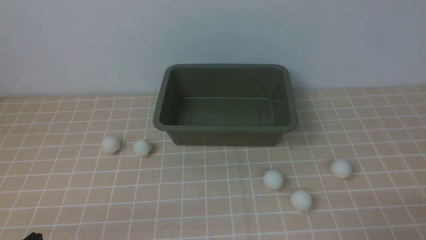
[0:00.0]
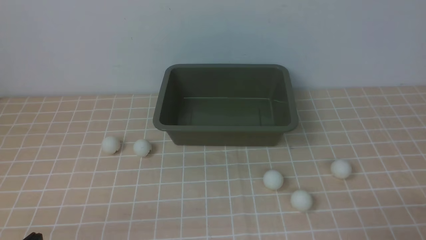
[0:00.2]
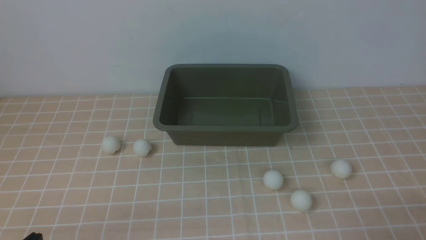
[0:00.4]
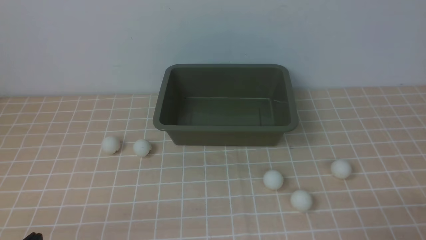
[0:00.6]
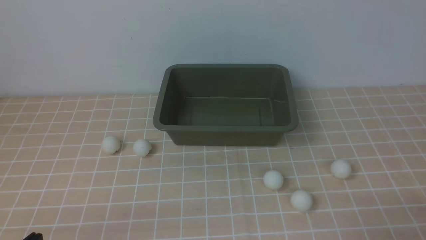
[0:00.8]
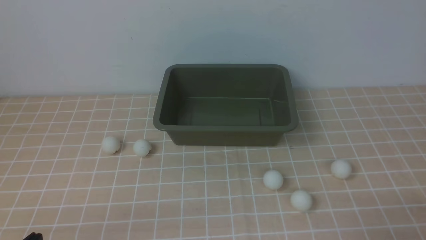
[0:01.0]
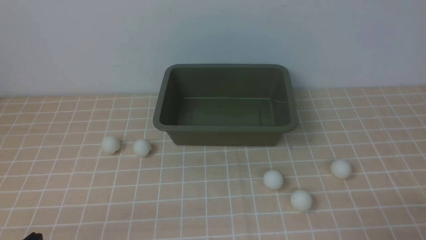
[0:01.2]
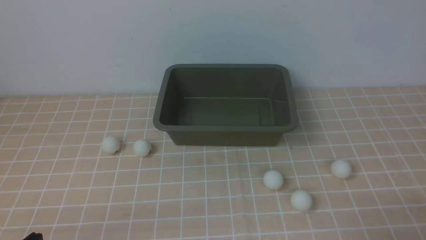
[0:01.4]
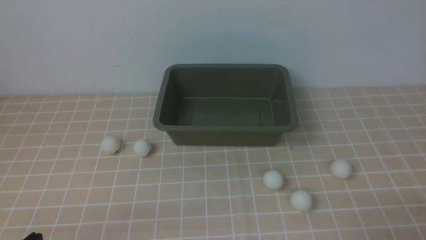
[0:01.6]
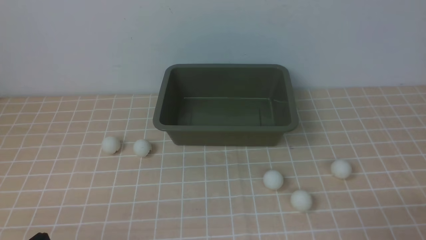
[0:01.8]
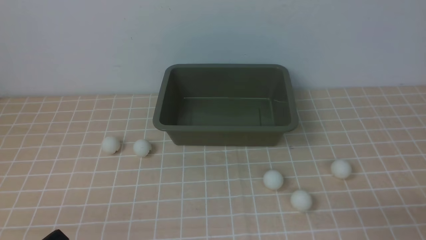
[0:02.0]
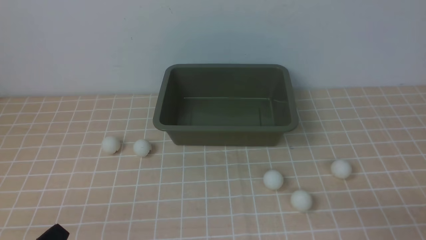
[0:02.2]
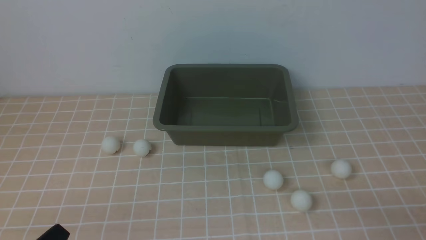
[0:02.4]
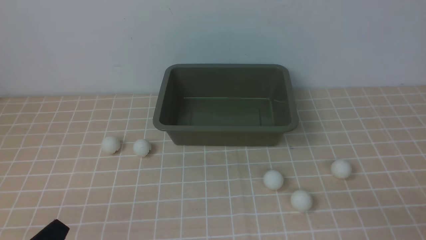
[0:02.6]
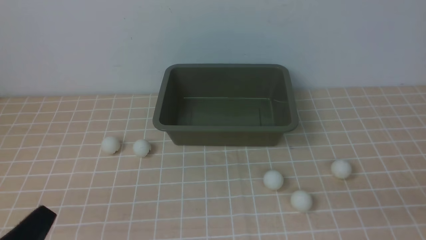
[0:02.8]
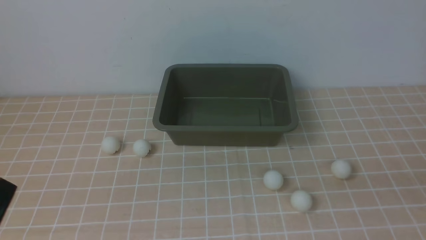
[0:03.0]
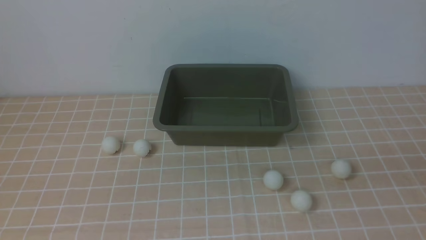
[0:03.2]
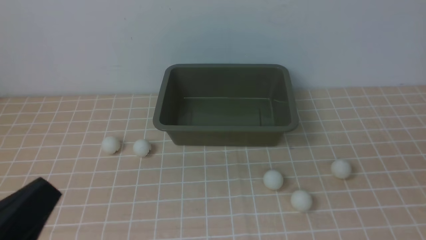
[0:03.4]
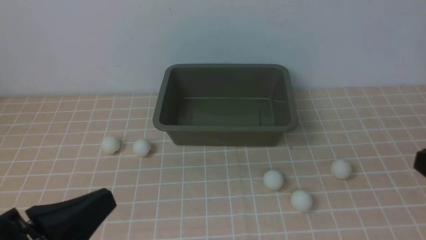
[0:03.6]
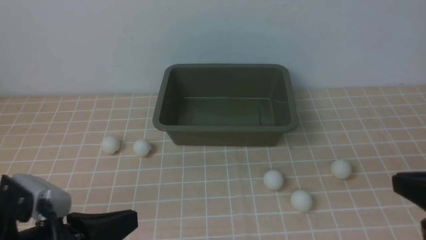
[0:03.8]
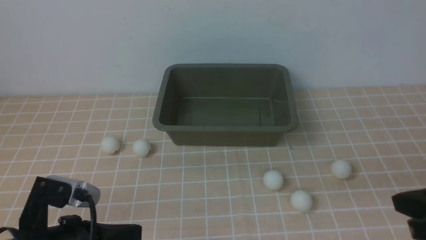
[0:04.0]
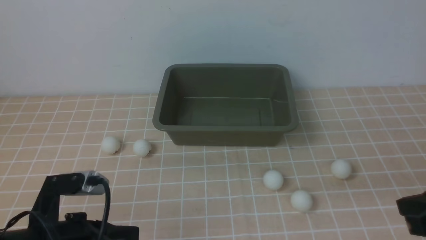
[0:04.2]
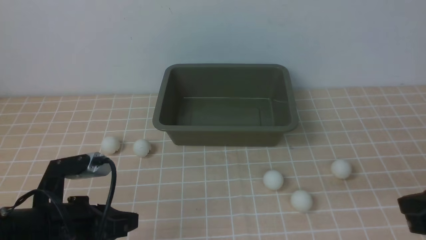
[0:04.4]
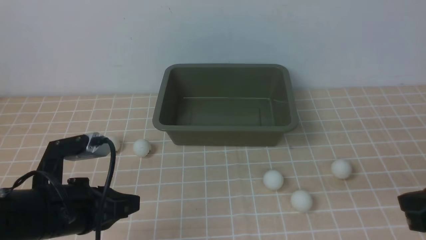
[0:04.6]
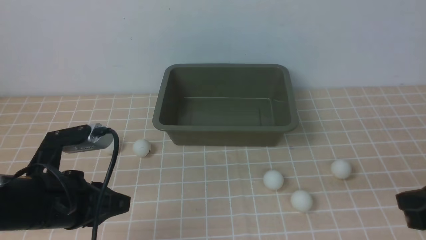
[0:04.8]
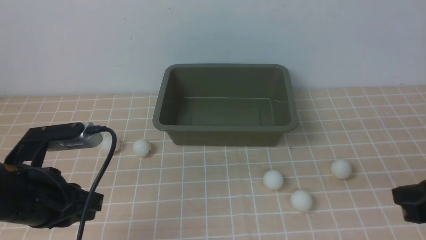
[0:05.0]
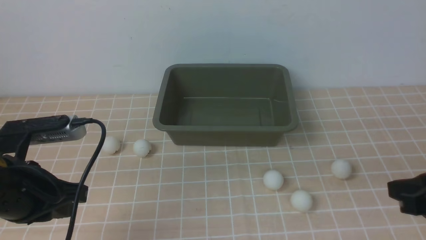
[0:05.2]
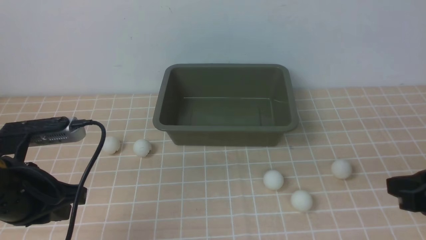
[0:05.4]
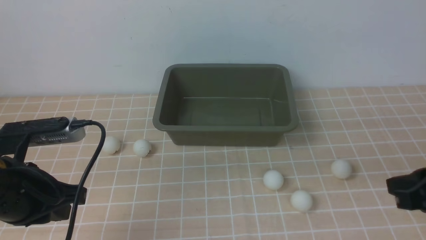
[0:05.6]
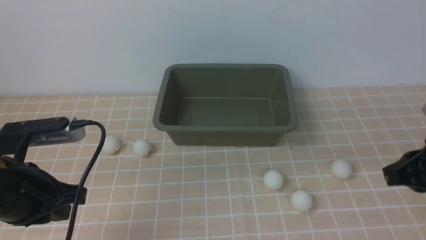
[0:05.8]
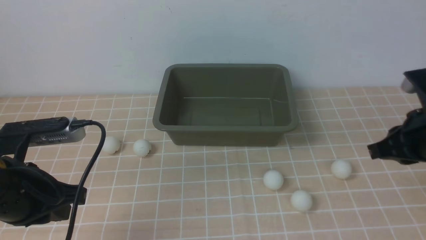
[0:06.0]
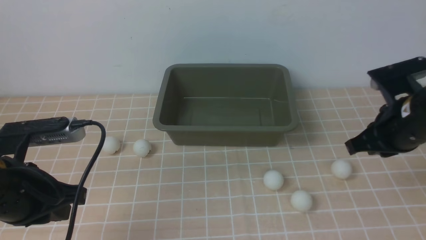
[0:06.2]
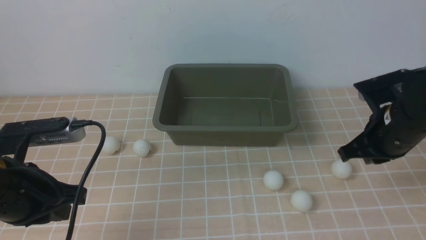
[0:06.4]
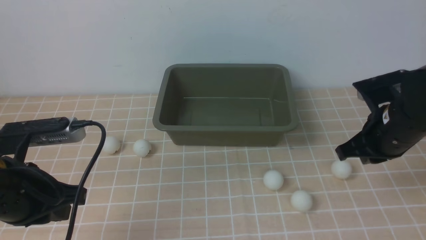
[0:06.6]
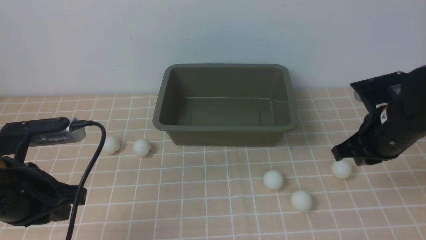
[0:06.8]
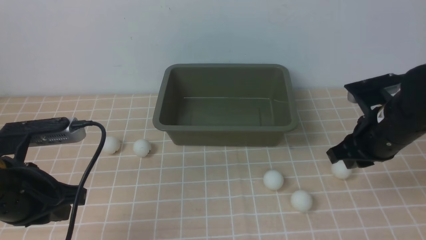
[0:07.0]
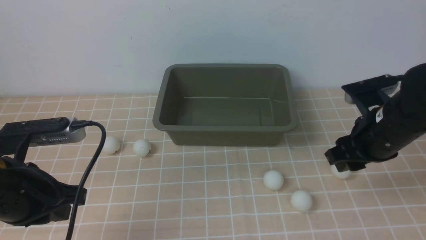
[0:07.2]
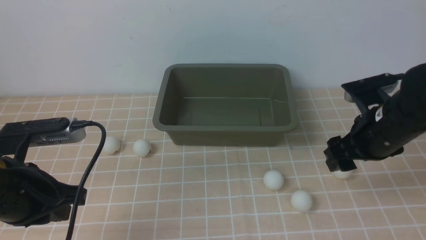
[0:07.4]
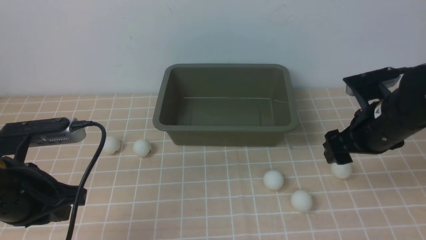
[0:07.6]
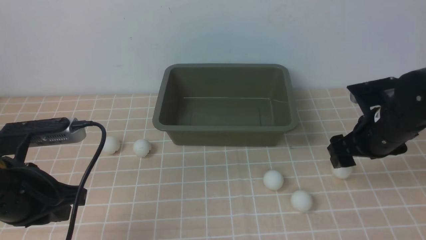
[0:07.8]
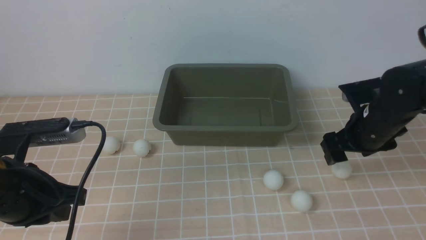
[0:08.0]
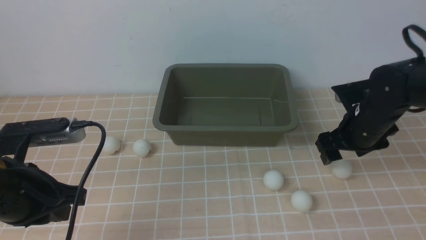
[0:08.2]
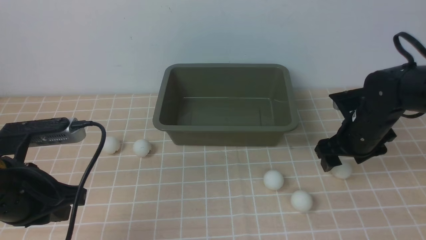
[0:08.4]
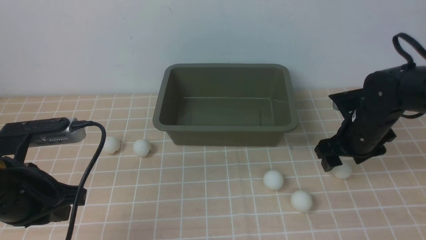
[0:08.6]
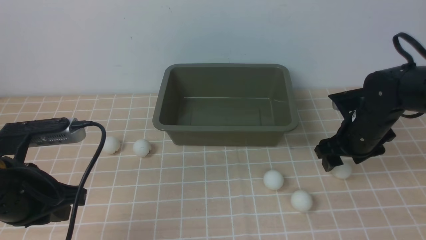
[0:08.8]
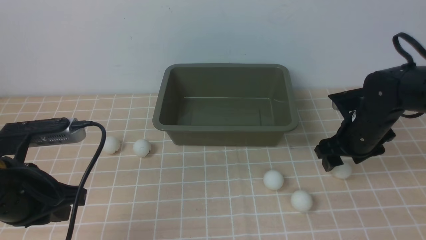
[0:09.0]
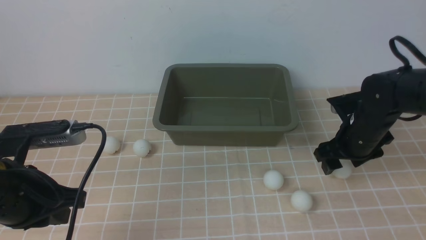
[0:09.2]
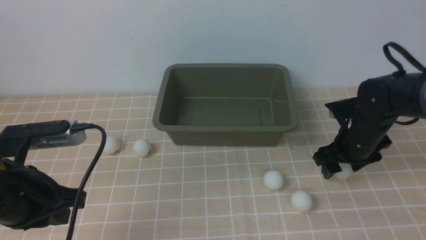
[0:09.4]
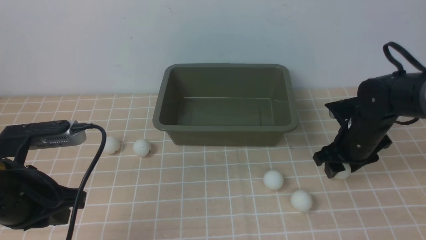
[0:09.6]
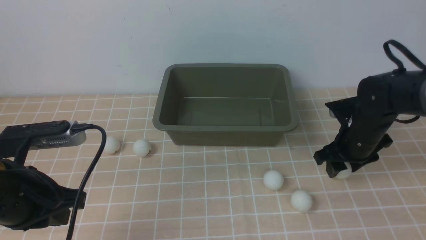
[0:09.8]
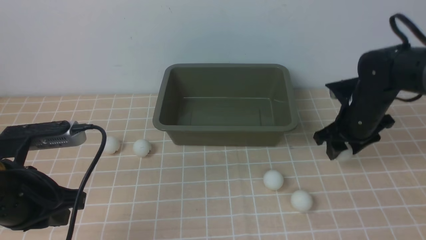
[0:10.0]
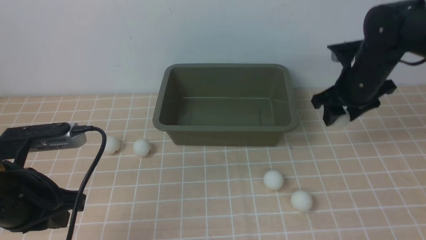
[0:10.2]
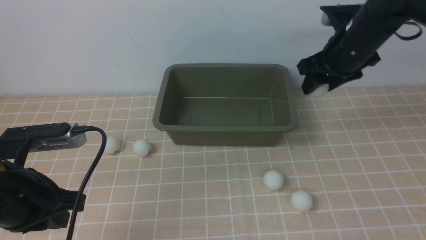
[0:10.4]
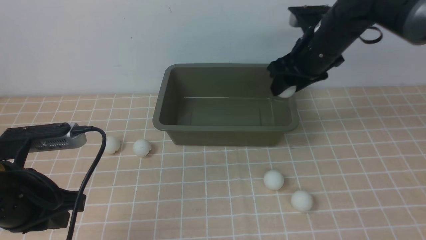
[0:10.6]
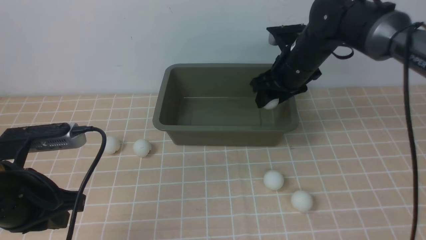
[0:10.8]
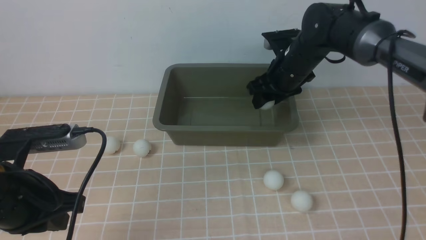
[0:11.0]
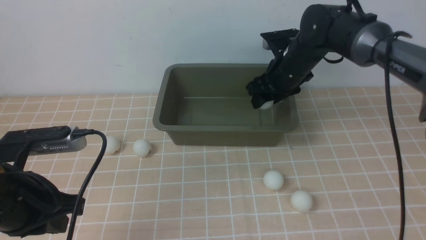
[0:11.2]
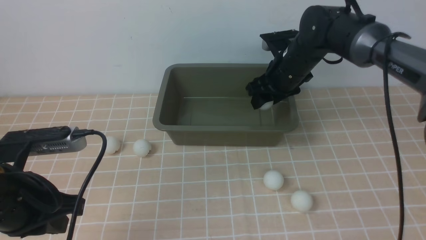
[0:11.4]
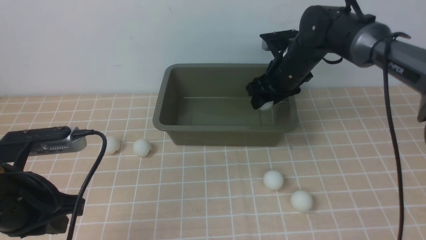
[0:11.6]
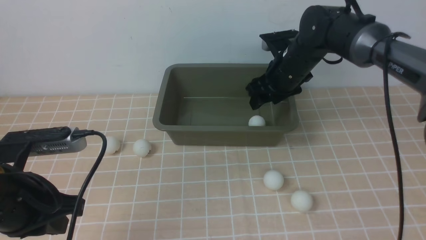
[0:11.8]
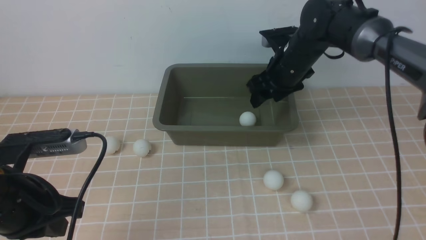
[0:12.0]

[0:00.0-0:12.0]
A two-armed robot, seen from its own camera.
Step, 0:00.0 to 0:09.8: use the right arm to clamp the table tennis ball closest to it.
Step, 0:10.0 to 0:12.0: use the right arm to put the table tennis ball into the box.
0:00.0 to 0:01.6: Both grippers stay about where they are.
0:03.0 to 0:04.4: The right gripper moves forward, some 10 cm; the left gripper shifts approximately 15 cm forward and downward.
0:04.4 to 0:06.0: The left gripper shifts some 5 cm upward; the right gripper travels forward by about 10 cm.
0:06.0 to 0:07.6: The right gripper shifts approximately 5 cm forward, and opens up.
0:07.6 to 0:09.0: The right gripper heads downward and forward, covering approximately 10 cm.
0:09.0 to 0:10.4: The right gripper goes approximately 15 cm upward and forward.
0:10.4 to 0:12.0: The right gripper shifts roughly 5 cm to the left.

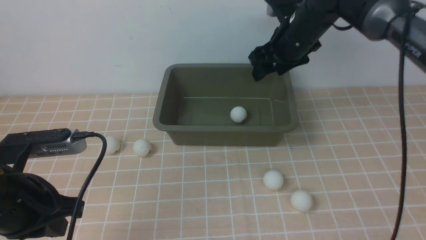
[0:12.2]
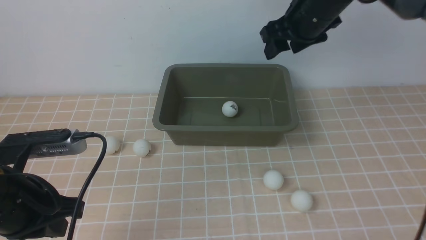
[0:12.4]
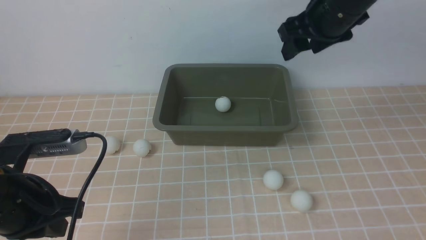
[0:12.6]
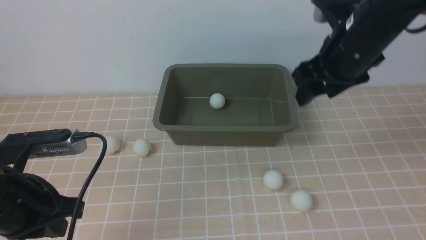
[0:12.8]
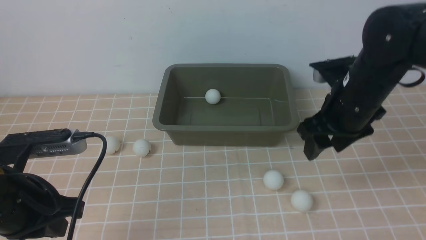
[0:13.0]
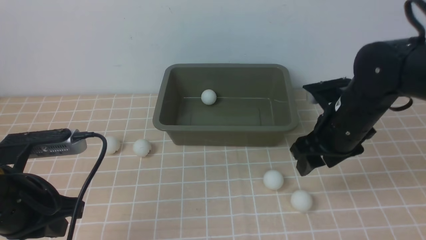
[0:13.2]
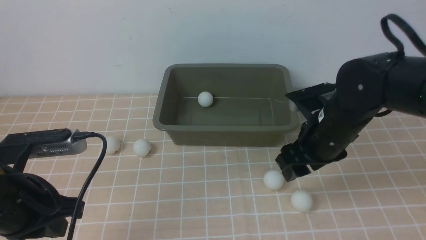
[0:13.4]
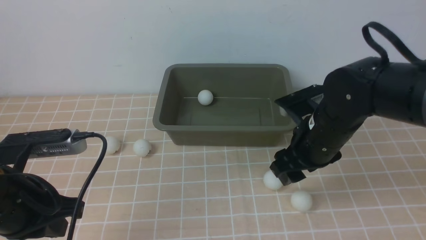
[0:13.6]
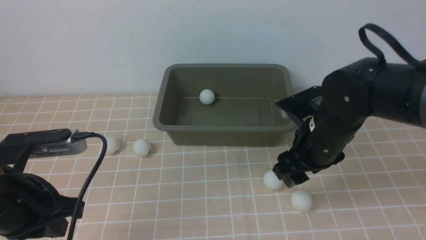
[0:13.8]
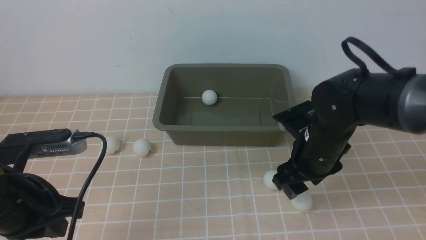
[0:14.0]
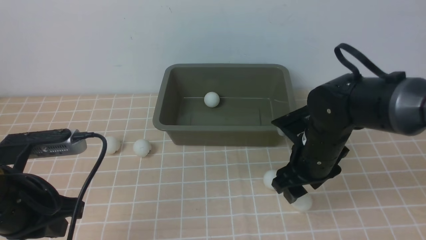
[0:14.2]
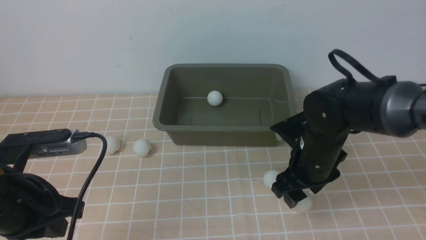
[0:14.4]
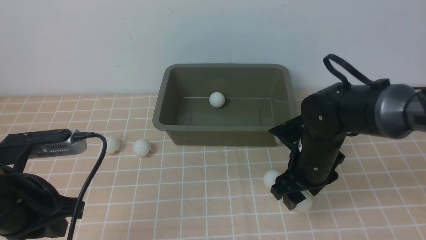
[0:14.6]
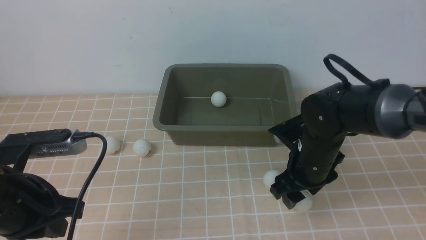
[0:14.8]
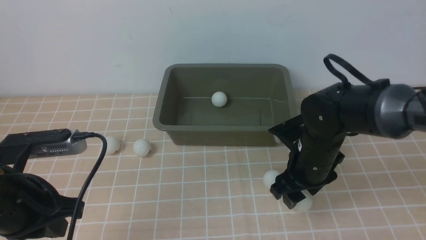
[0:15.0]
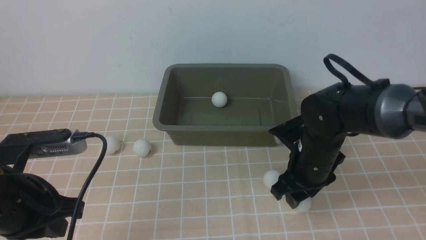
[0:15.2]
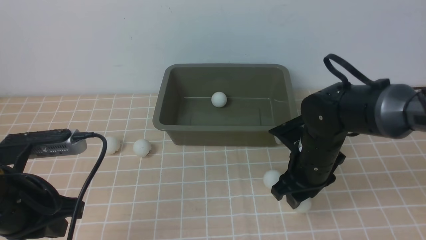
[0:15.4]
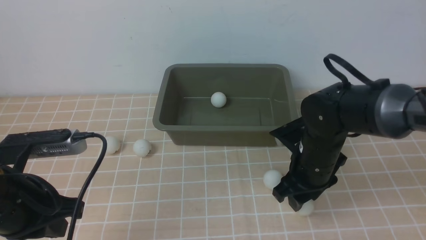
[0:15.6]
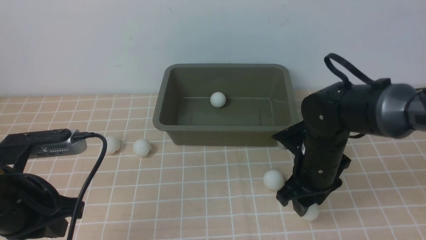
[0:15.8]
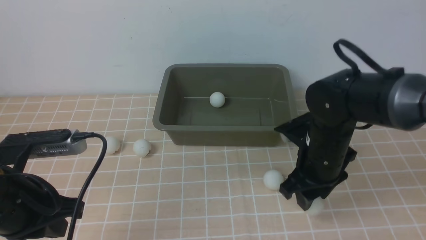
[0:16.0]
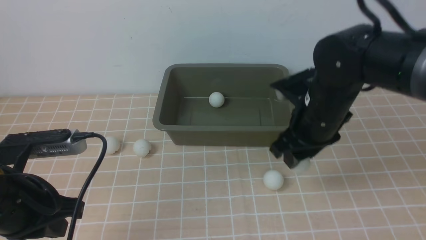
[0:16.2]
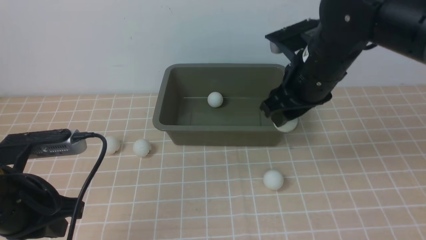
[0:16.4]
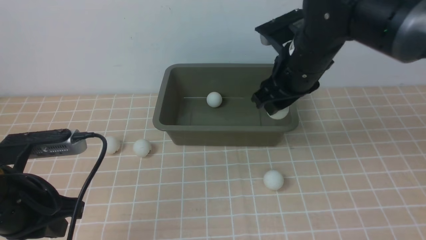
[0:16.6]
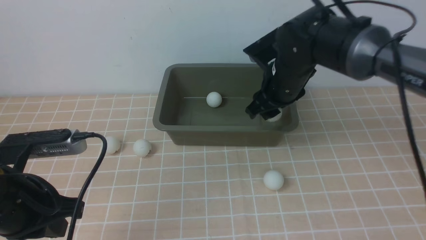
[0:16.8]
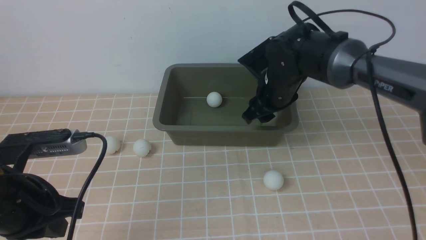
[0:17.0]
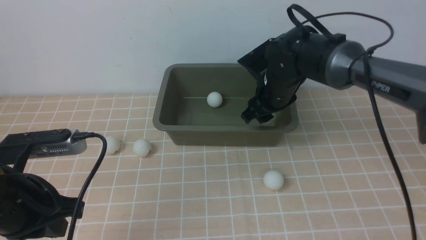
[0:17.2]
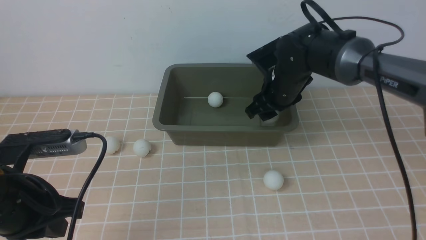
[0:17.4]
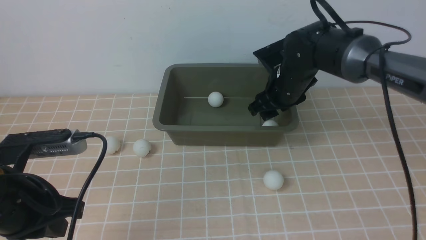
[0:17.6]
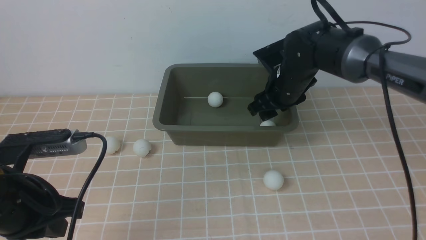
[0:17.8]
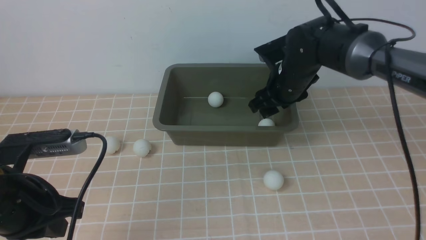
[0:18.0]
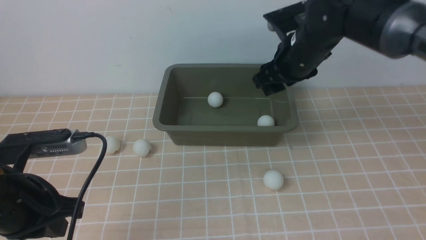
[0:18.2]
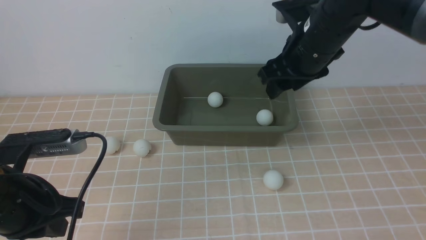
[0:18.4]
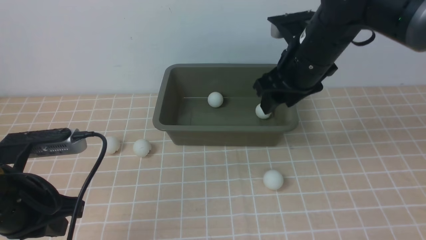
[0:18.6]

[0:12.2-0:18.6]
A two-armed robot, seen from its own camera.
Step, 0:12.2 to 0:15.6: use the right arm to clamp the table tennis ball closest to it.
Step, 0:15.8 to 0:17.8: use the right arm to put the table tennis ball into the box.
0:12.2 to 0:13.8: The right gripper goes roughly 15 cm backward and downward.
0:13.8 to 0:15.4: The grippers move only a little.
0:15.4 to 0:17.0: The right gripper heads forward and upward, covering roughly 10 cm.
0:17.0 to 0:18.6: The right gripper travels upward and backward by roughly 10 cm.
